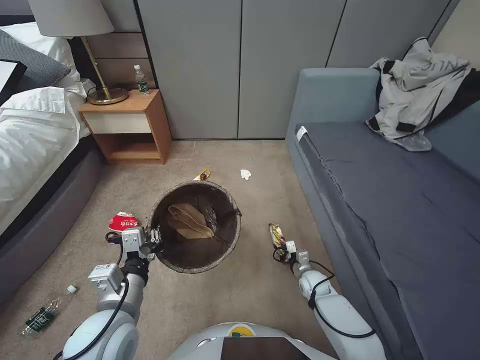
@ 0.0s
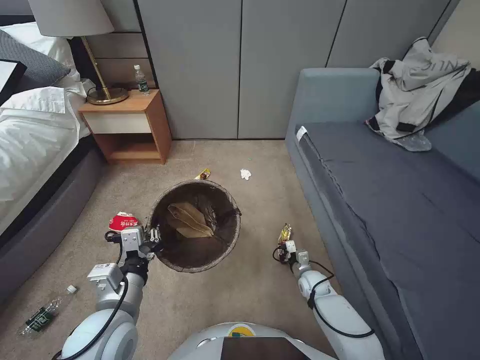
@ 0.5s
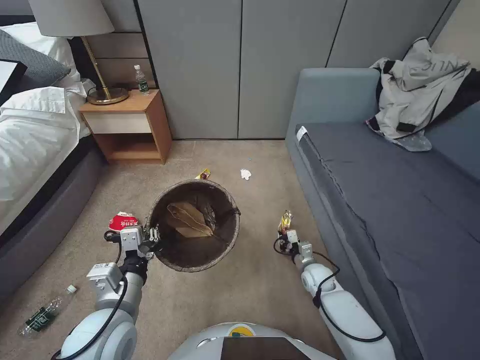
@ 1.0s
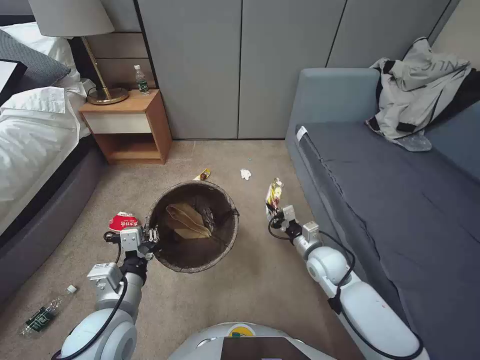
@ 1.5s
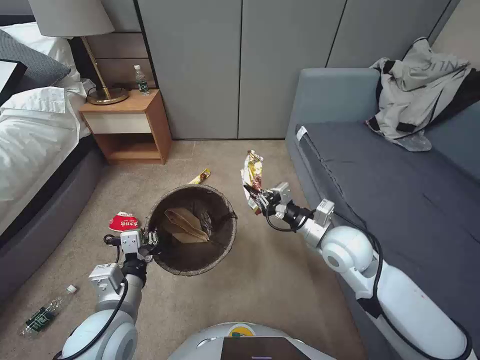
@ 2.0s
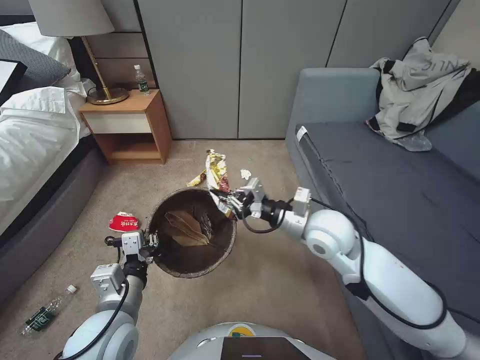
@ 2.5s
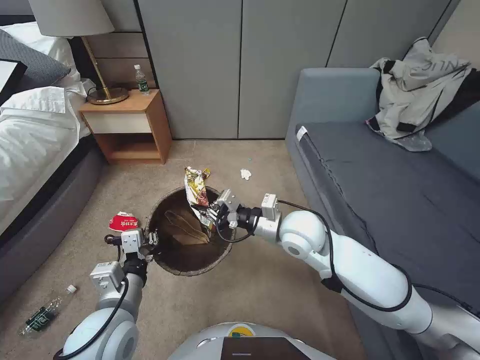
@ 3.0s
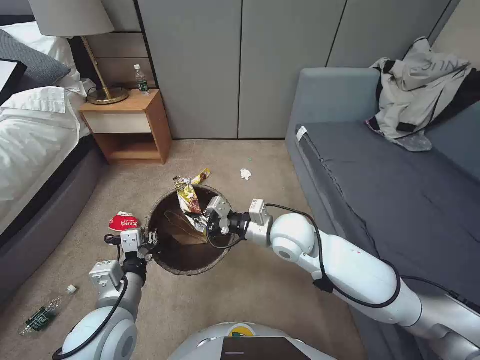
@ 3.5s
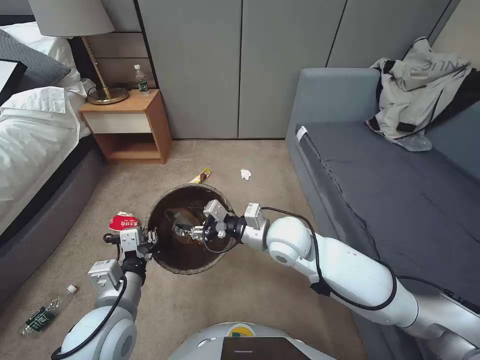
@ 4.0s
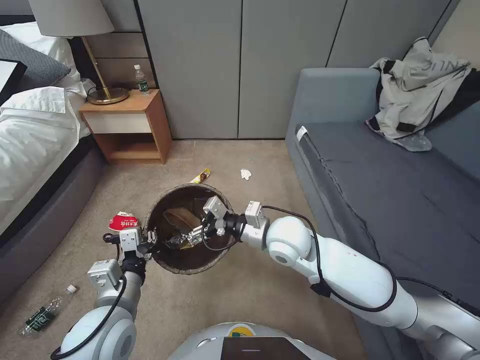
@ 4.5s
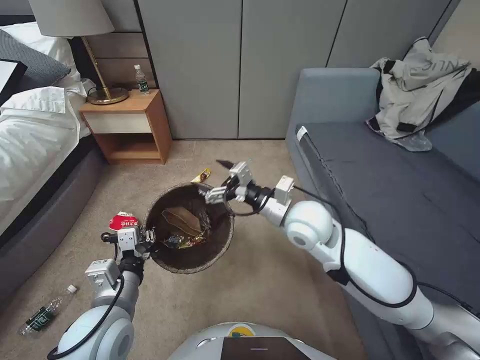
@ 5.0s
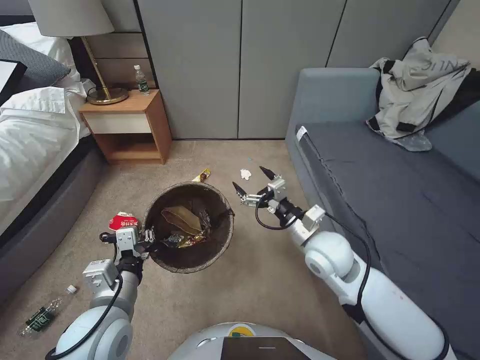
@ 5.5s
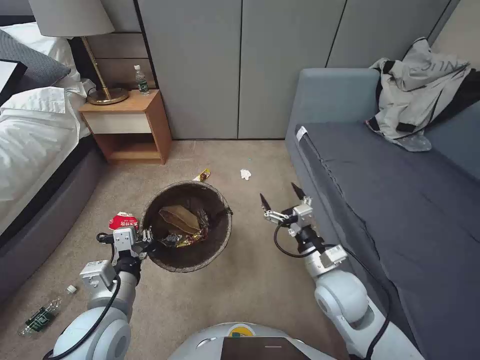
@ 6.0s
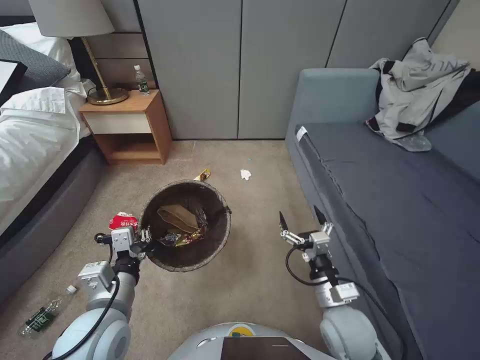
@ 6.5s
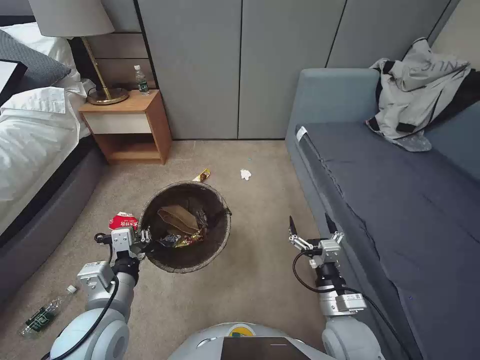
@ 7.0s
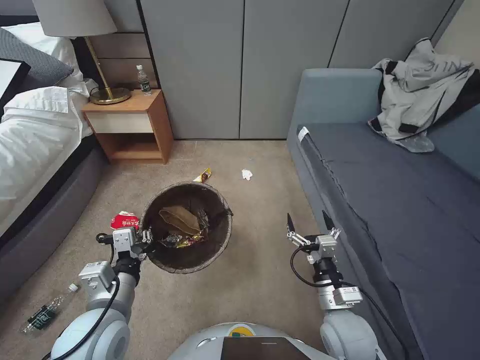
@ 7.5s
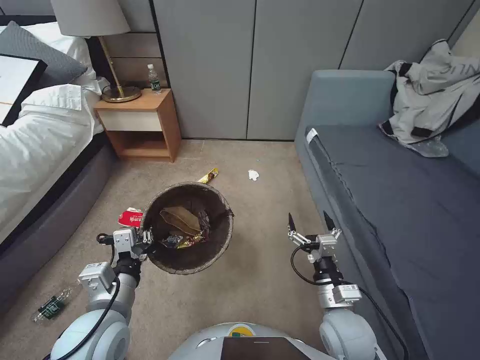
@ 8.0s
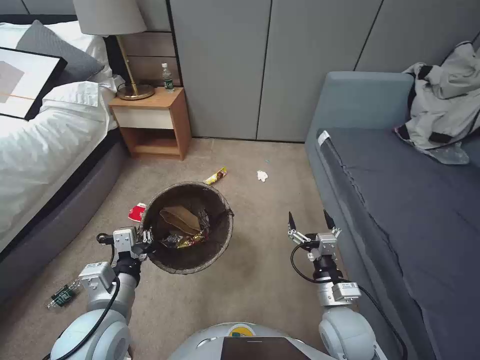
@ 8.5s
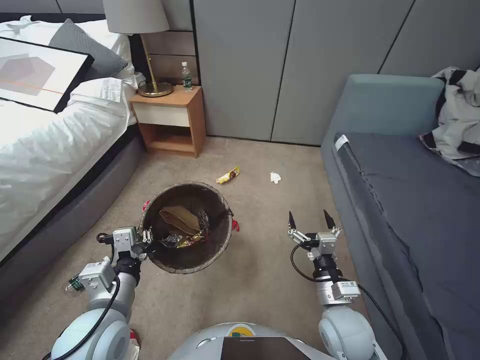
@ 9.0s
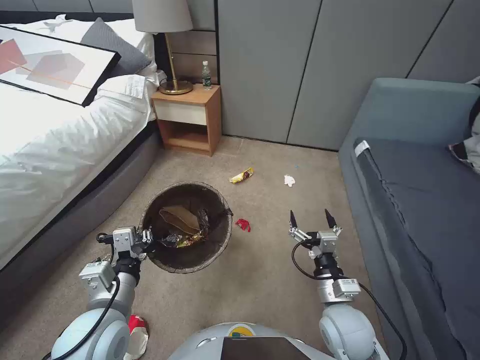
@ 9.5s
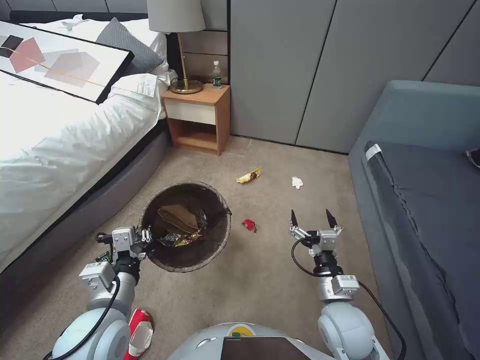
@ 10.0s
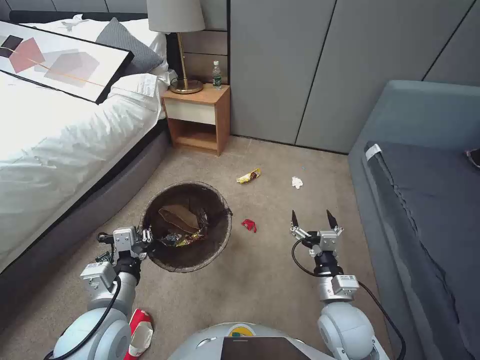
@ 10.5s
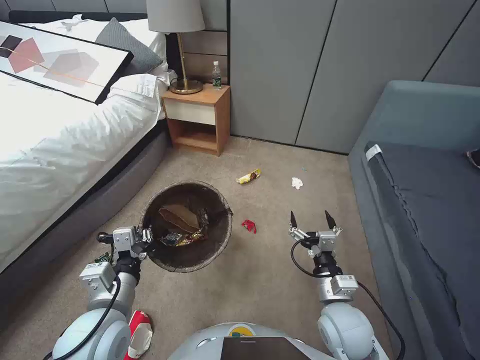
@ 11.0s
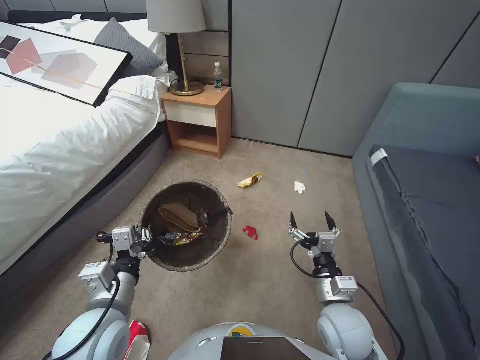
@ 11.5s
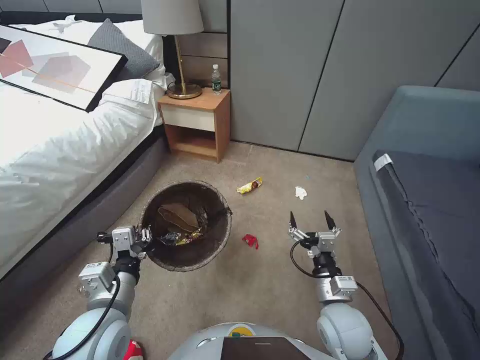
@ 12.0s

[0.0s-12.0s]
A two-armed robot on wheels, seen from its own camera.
Task of the whole recording: Pick up the trash bin, then pick up the garbage from the floor and place it into the trash bin.
0.0s to 2.0s: The right gripper goes roughly 30 cm upward, and closes its fingers.
2.0s to 4.0s: The right gripper is displaced to the left by about 15 cm, and opens.
4.0s to 6.0s: The right gripper heads to the right, backward and downward, covering roughly 15 cm, and opens up.
6.0s to 8.0s: The right gripper goes some 10 cm backward and downward.
10.0s to 12.0s: Both grippers stay about where they are.

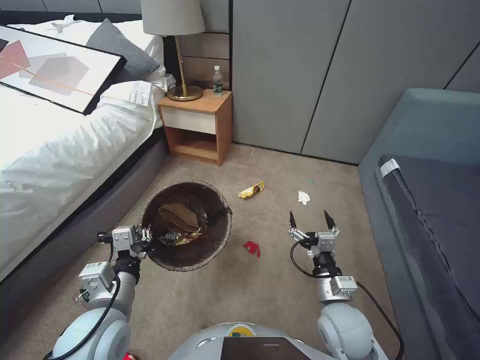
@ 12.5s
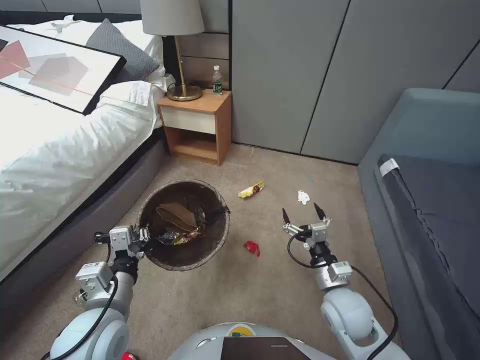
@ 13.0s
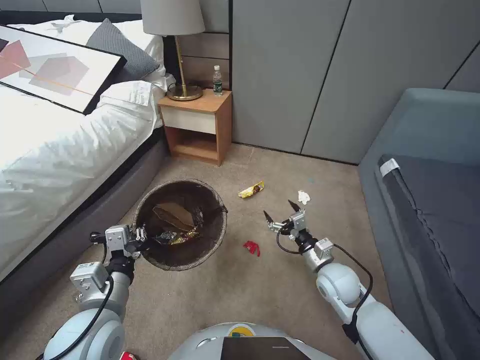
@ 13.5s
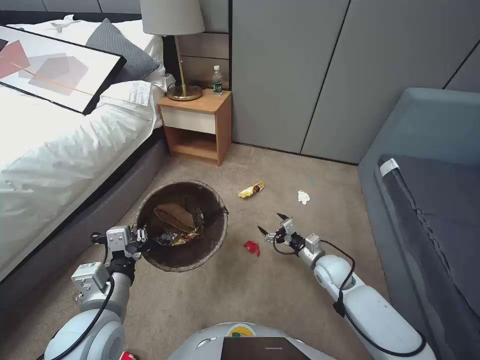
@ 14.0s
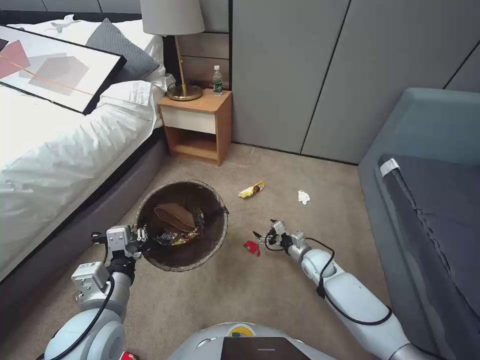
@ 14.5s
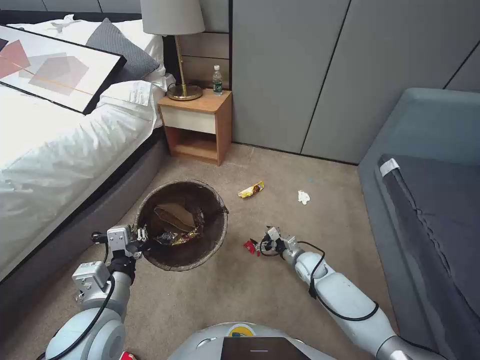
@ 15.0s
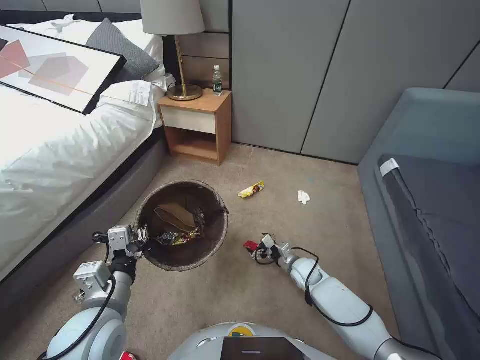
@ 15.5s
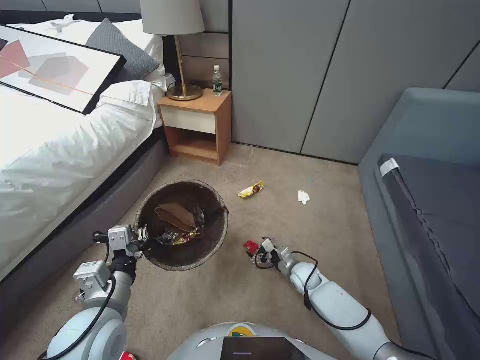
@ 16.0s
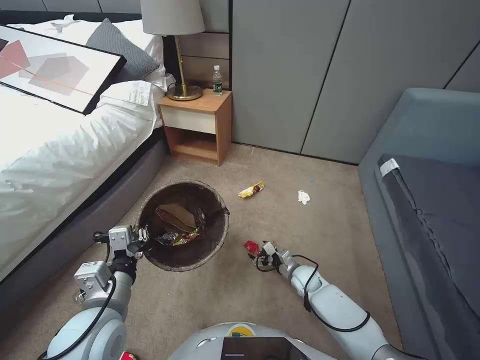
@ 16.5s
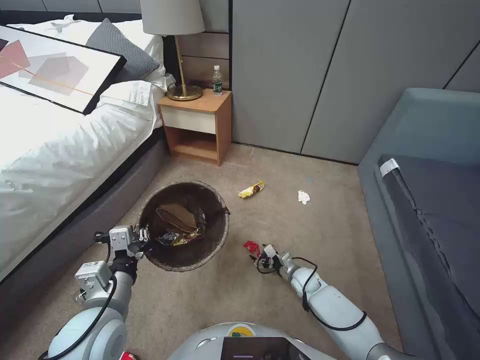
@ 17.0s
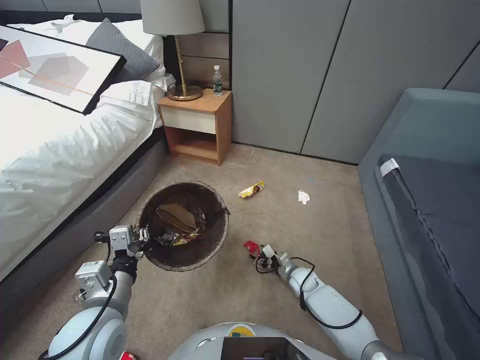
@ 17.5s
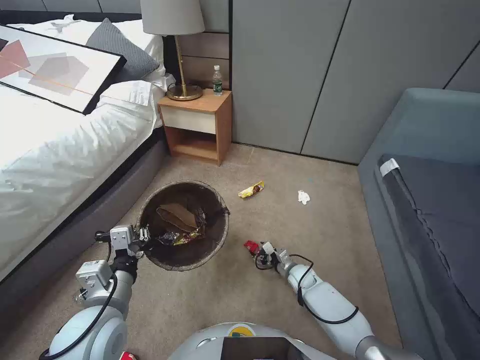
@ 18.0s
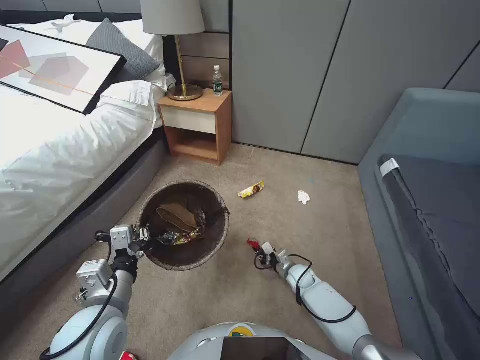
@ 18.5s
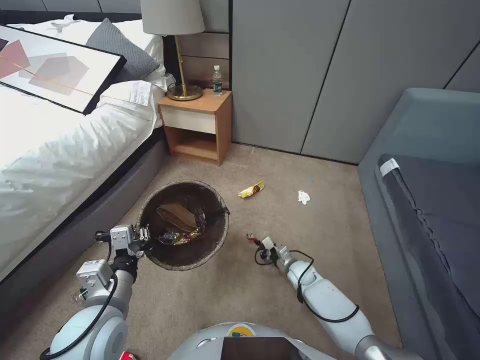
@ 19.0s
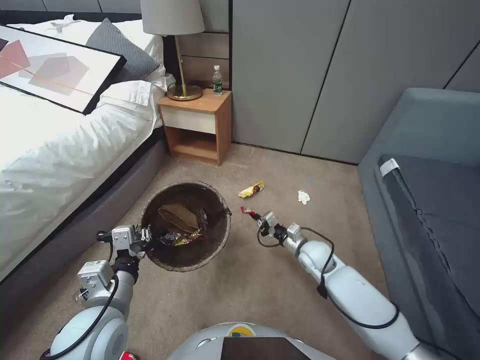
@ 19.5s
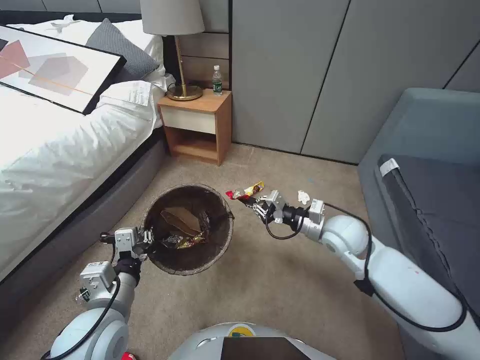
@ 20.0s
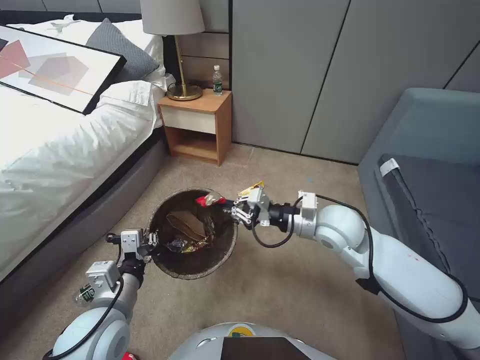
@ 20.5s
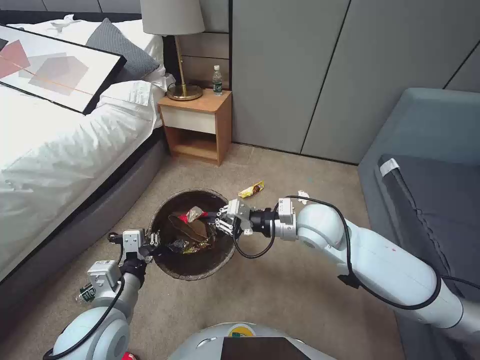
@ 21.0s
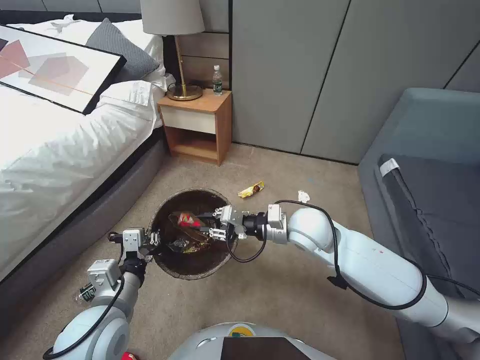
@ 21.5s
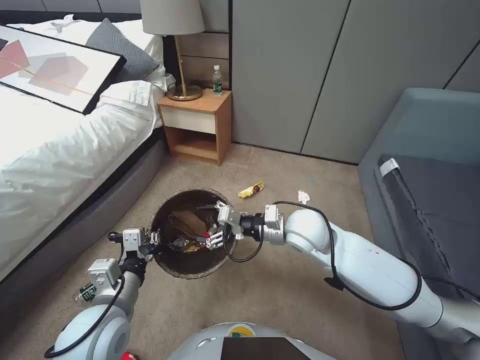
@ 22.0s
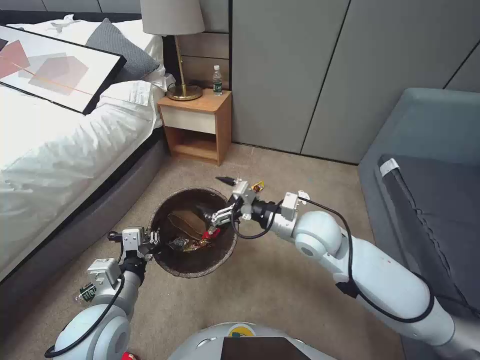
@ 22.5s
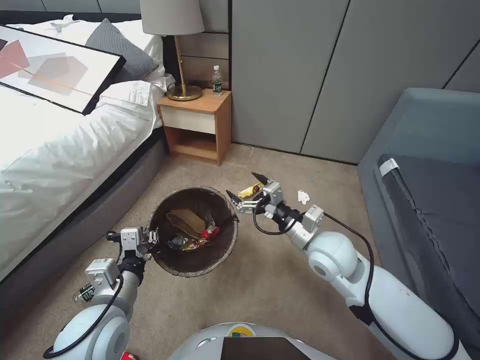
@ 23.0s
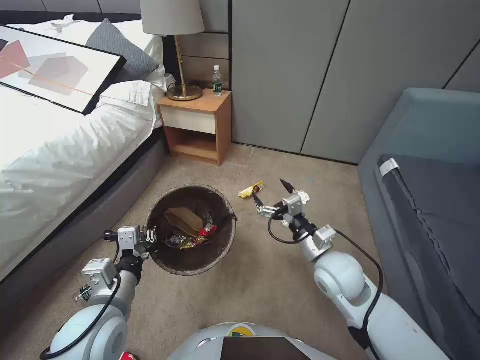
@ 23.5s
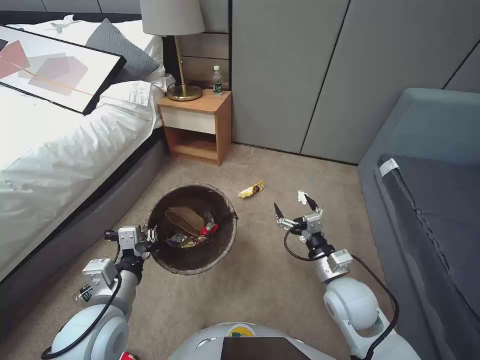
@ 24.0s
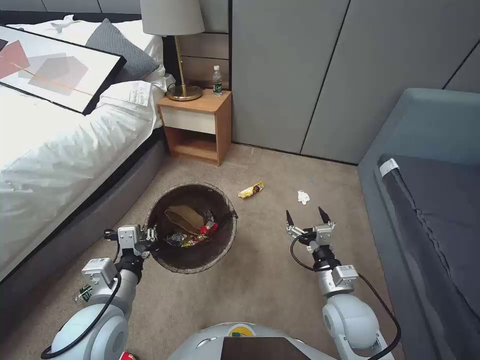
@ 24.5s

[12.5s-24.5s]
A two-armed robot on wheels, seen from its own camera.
Task of the whole recording: Pick up the trash bin, then pick up the garbage from the floor and place it into the trash bin.
12.5s to 14.5s: The right gripper is displaced forward and downward by approximately 20 cm.
14.5s to 16.5s: The right gripper goes roughly 10 cm downward.
16.5s to 18.5s: The right gripper closes.
18.5s to 20.5s: The right gripper heads upward, covering some 40 cm.
20.5s to 22.5s: The right gripper moves to the left, roughly 5 cm, and opens up.
22.5s to 24.5s: The right gripper shifts some 20 cm downward, backward and to the right.

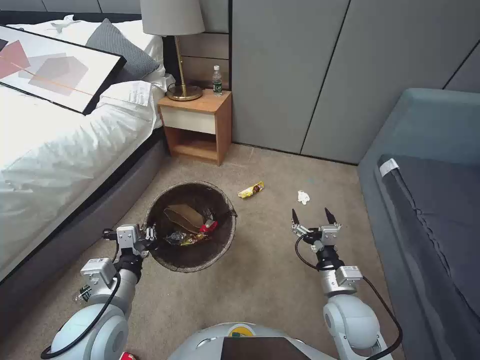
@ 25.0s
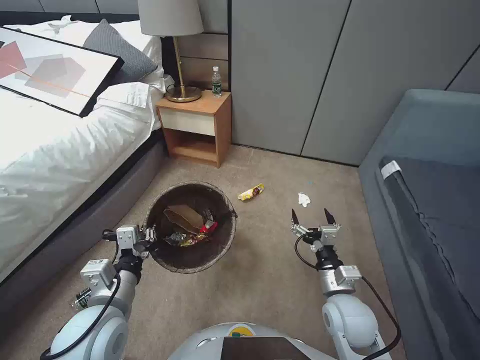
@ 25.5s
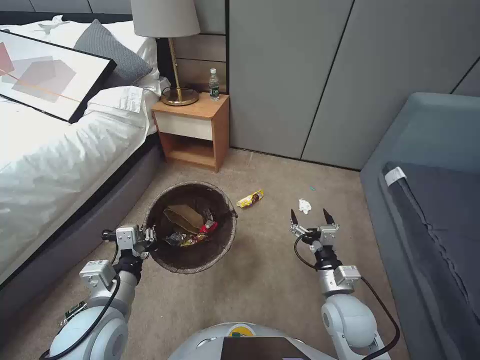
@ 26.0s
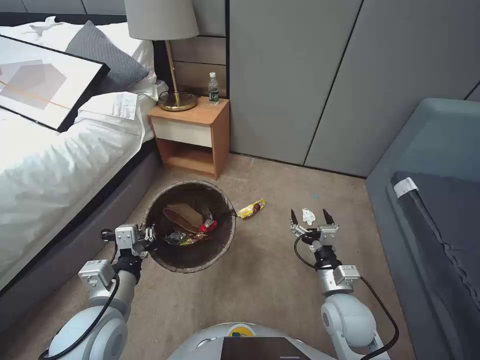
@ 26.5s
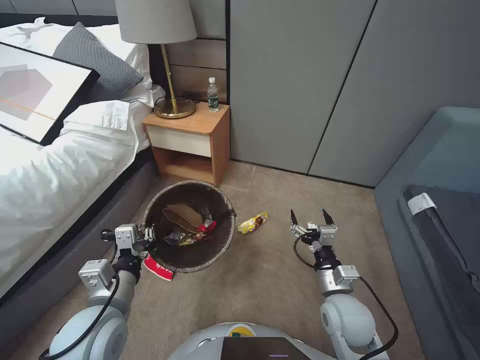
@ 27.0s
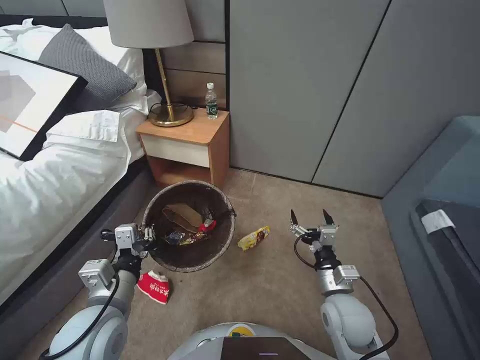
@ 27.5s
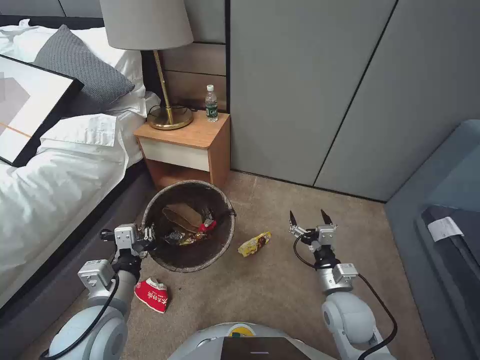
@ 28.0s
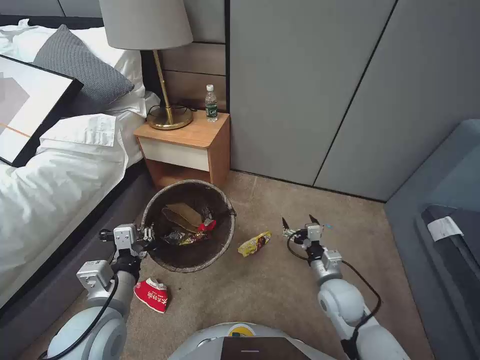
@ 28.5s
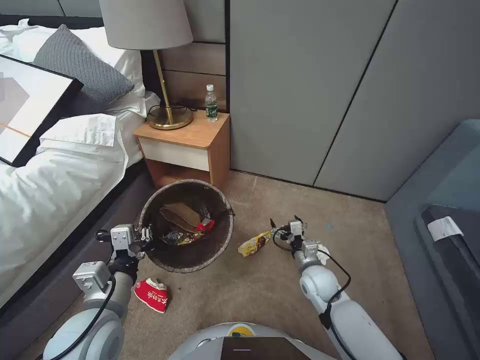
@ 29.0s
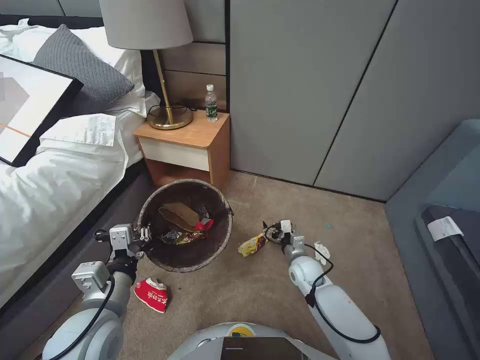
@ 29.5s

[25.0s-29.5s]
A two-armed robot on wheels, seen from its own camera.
Task of the whole recording: Pick up the trash bin, then pick up the garbage from the floor and place it into the trash bin.
27.0s to 29.5s: The right gripper travels forward and downward by approximately 20 cm.
